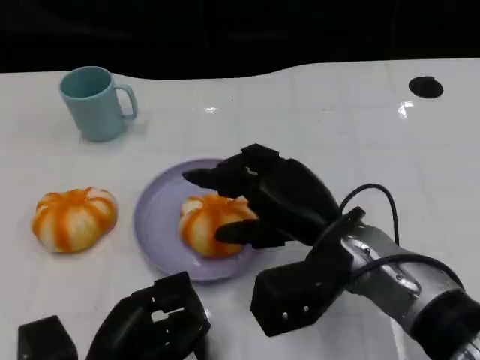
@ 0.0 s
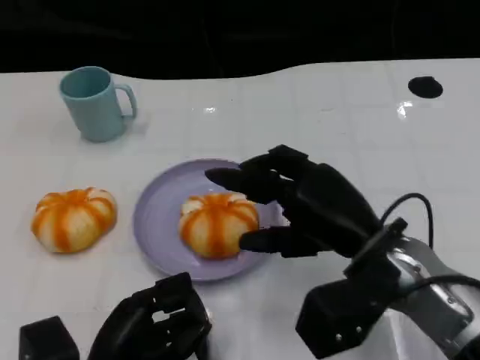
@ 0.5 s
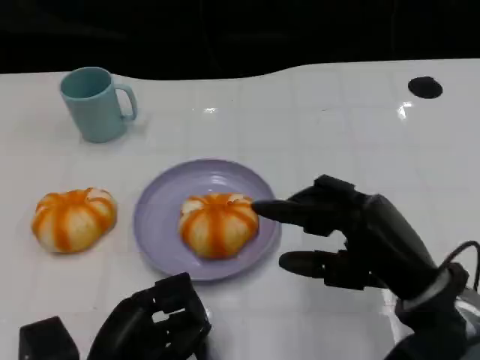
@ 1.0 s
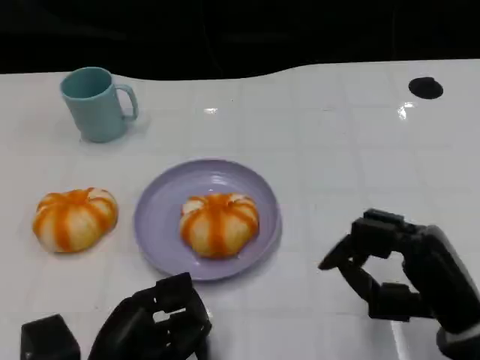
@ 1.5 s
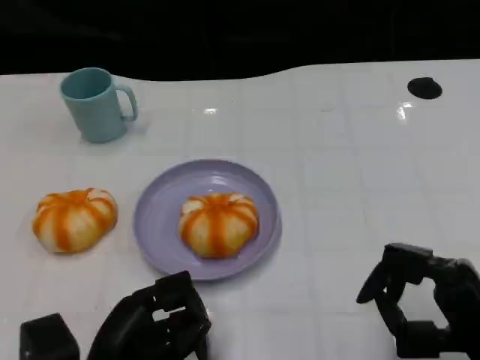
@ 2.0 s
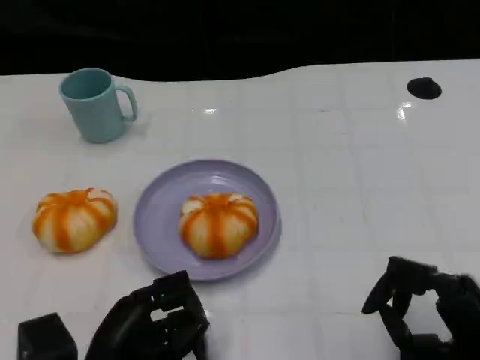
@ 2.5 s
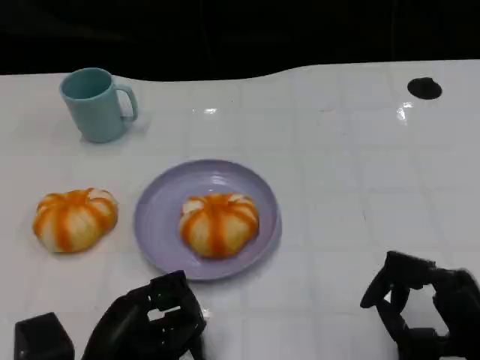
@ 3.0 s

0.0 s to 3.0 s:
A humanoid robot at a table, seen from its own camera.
Task of the whole recording: Grasp the bread from the table and place it into the plate.
0.0 to 1.5 s: The right hand is displaced to the right and backward by roughly 15 cm.
1.5 to 3.0 s: There are only small adjustments of the hands.
